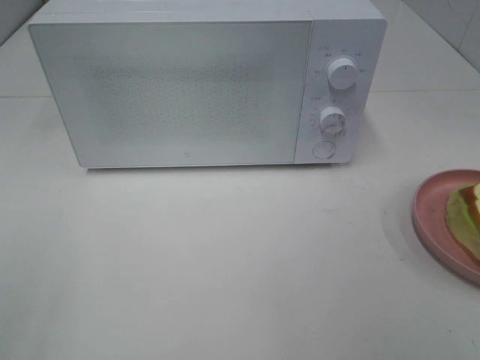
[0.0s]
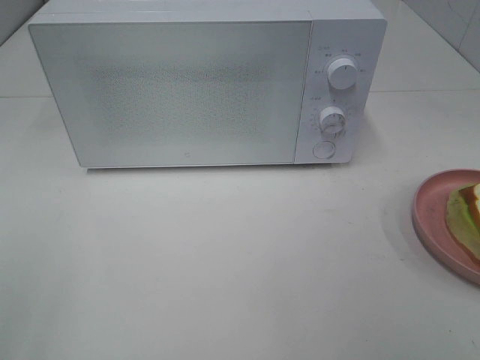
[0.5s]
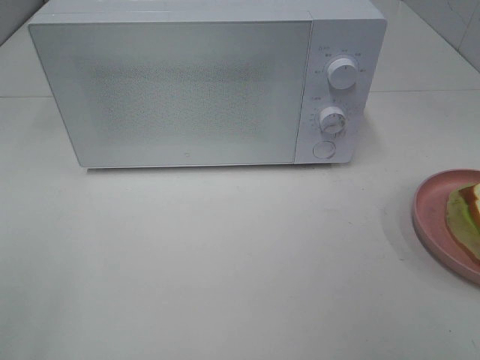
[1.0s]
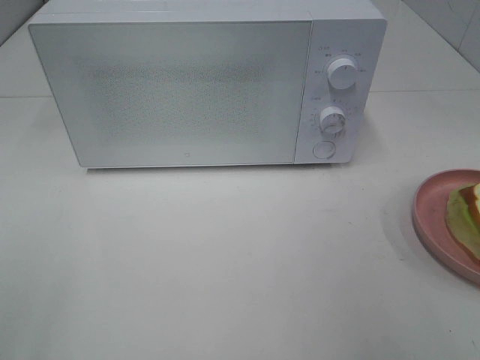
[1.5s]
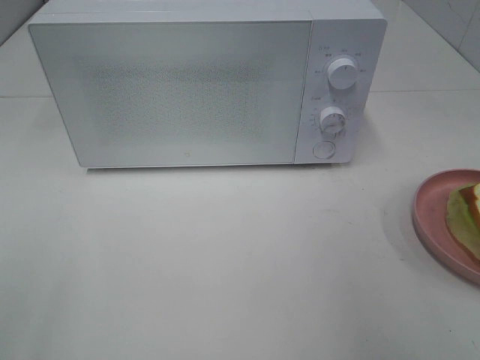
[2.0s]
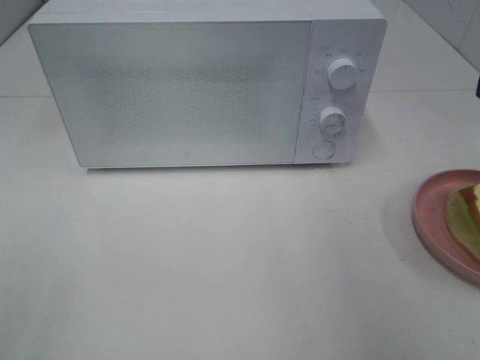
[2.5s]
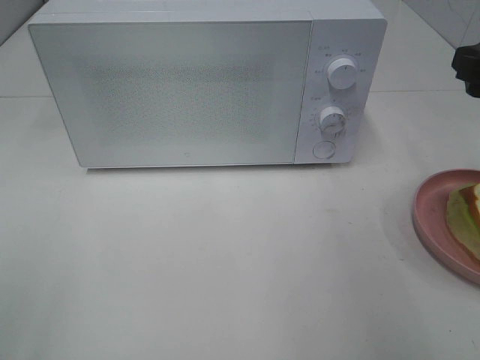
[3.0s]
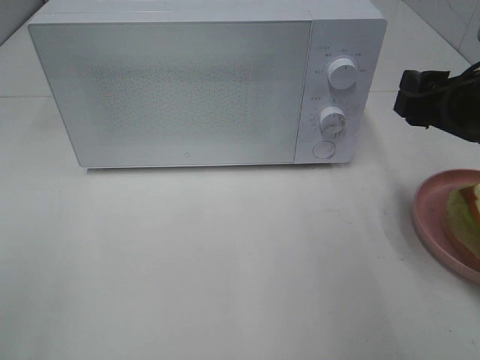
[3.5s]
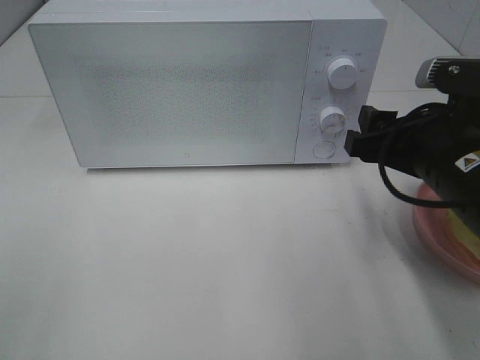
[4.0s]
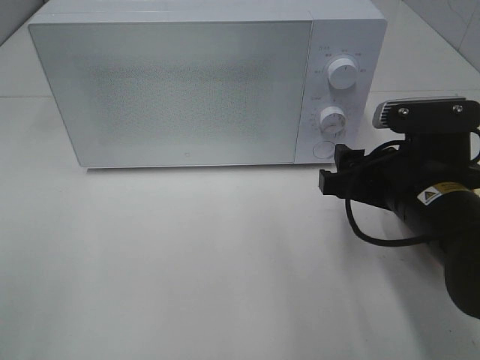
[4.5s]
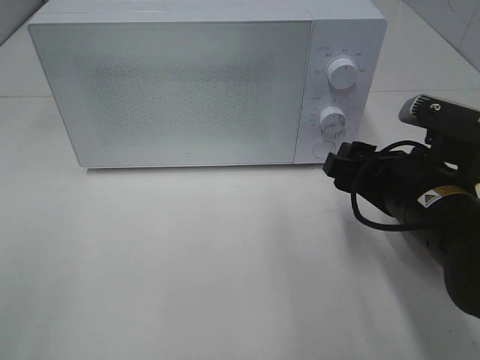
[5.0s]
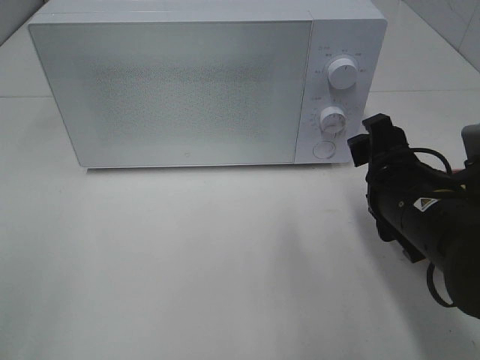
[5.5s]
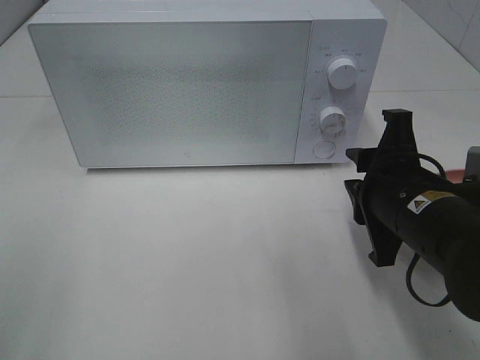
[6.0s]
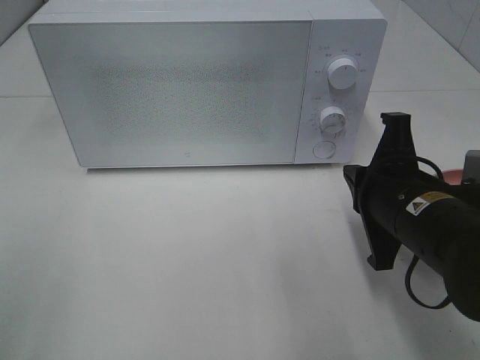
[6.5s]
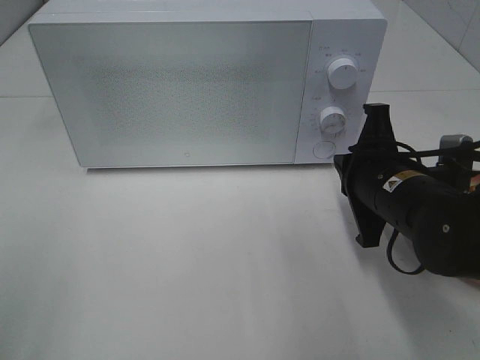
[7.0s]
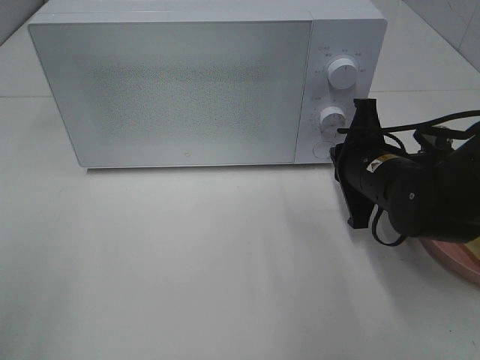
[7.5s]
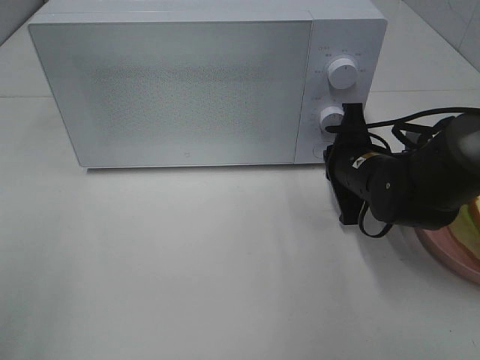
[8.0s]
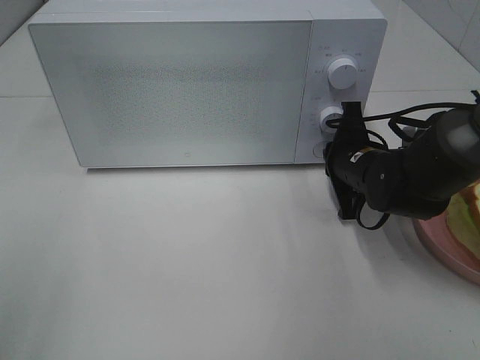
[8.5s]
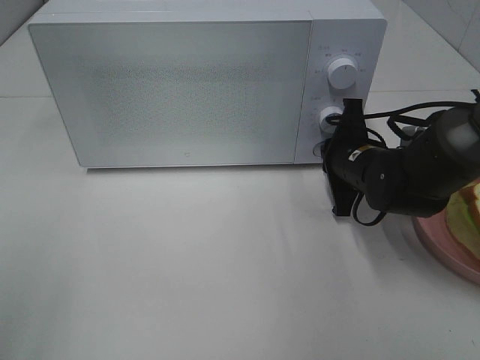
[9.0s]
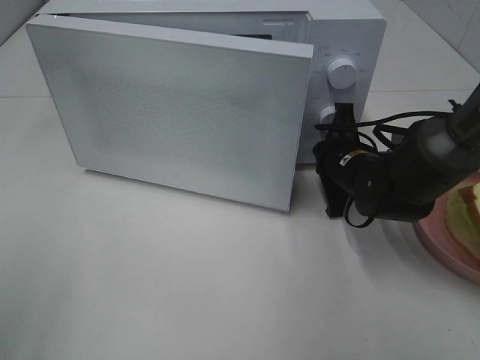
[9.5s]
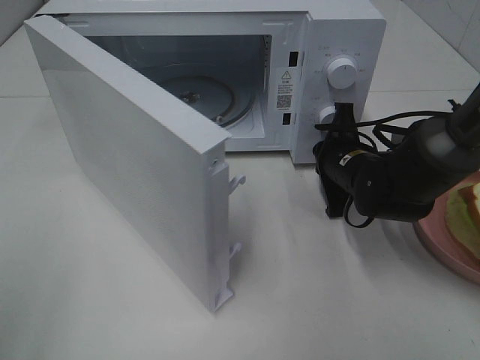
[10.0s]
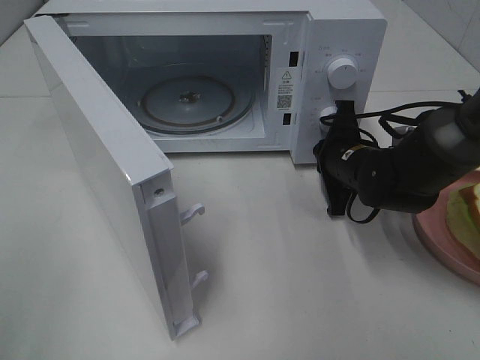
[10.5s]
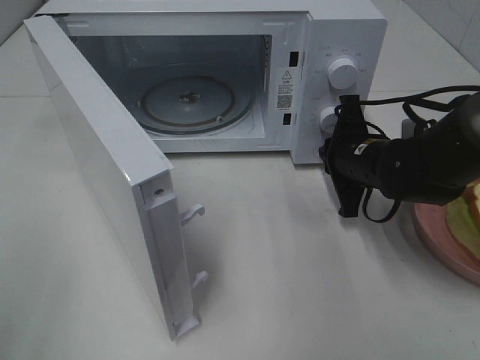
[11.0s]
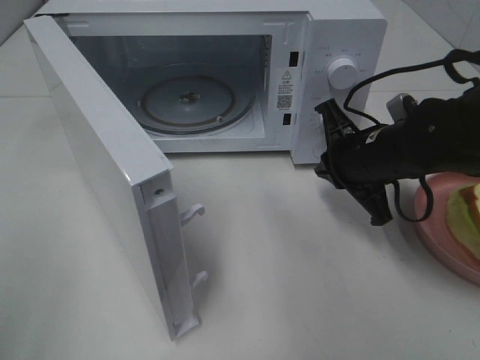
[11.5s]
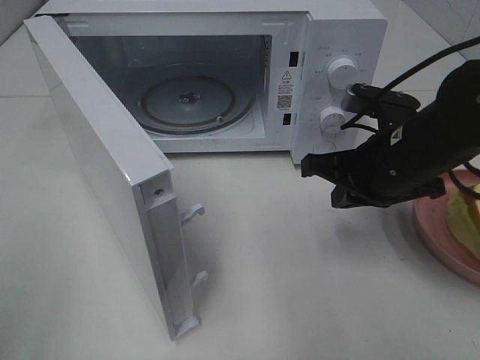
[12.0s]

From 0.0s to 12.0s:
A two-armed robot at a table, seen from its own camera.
Task of the whole recording: Heat Sandwich.
Step, from 0.0s to 11.0s: Right hand: press the switch.
From 2.0s to 4.0s: The right gripper moves downward, to the left and forward, roughly 15 cm.
From 4.0s to 6.0s: The right gripper closes.
From 6.0s to 8.0s: The right gripper moves forward and downward, approximately 15 cm, and closes.
From 10.0s to 12.0s: The right gripper heads upward and backward, covering roughly 10 cm.

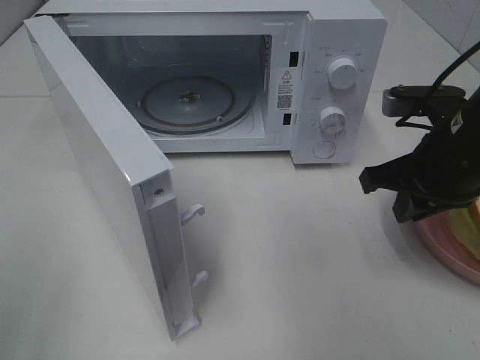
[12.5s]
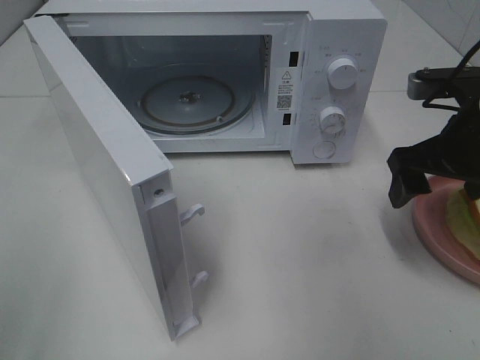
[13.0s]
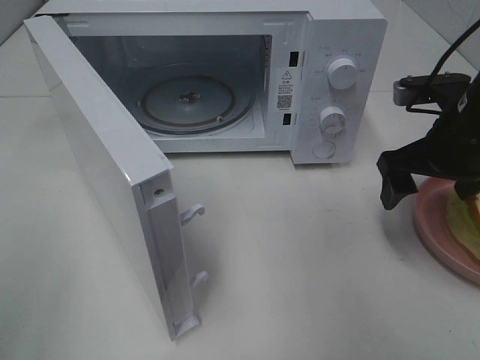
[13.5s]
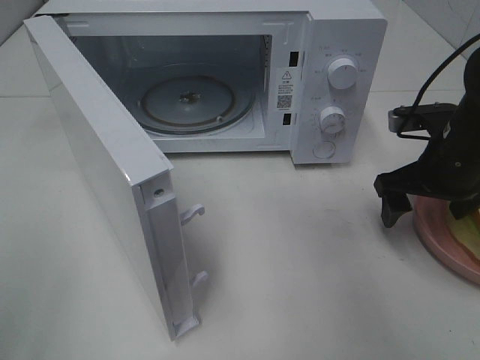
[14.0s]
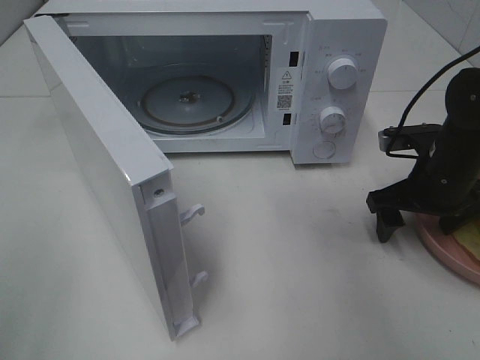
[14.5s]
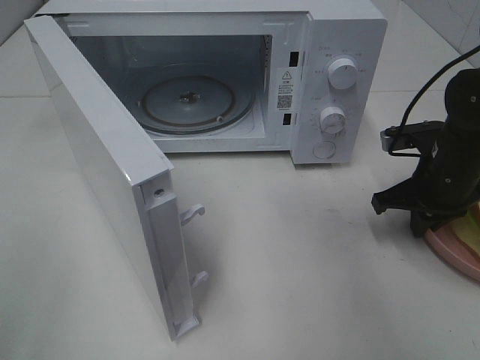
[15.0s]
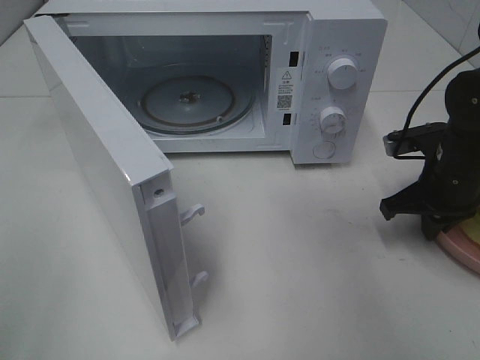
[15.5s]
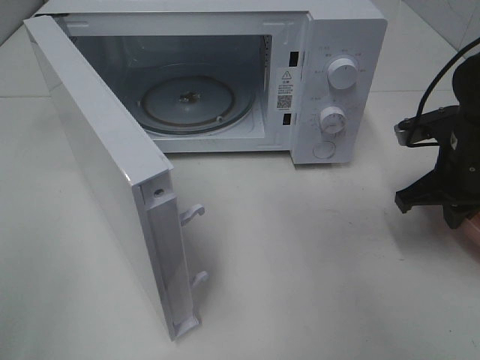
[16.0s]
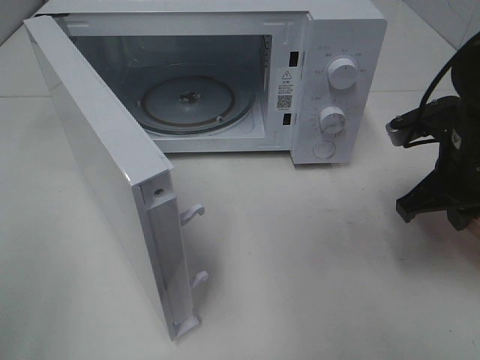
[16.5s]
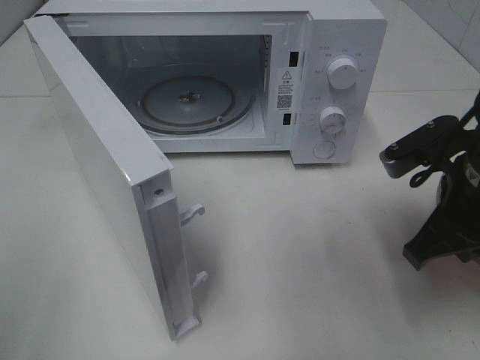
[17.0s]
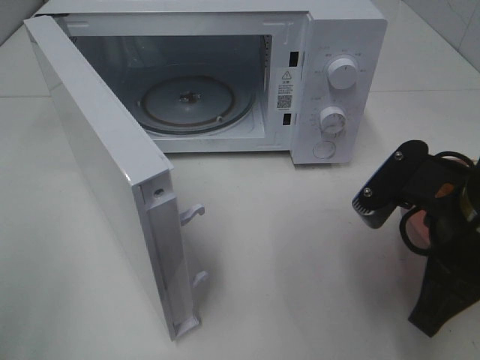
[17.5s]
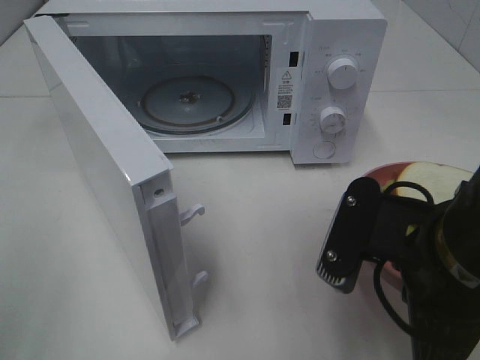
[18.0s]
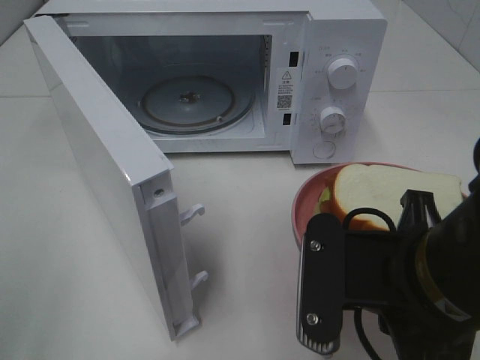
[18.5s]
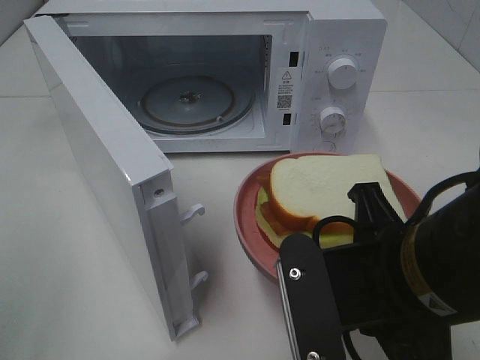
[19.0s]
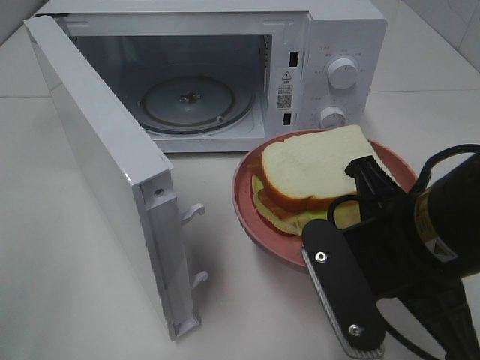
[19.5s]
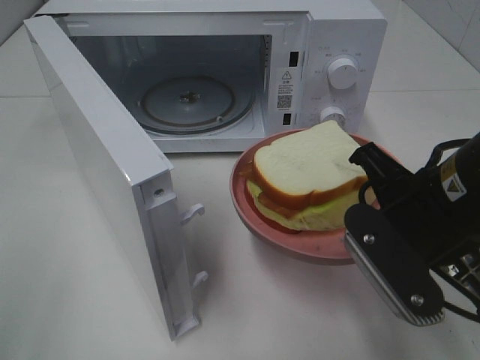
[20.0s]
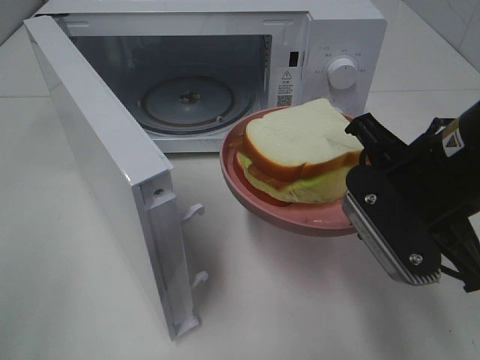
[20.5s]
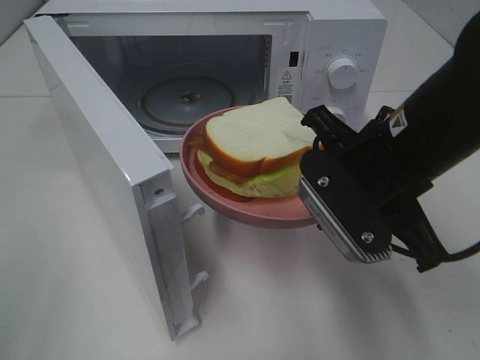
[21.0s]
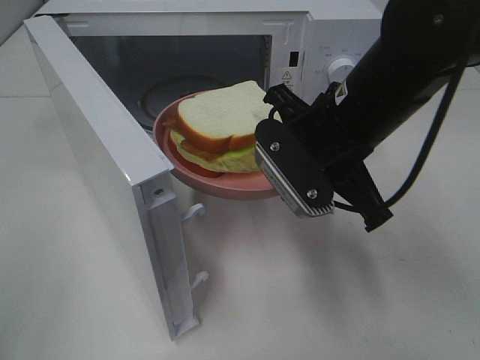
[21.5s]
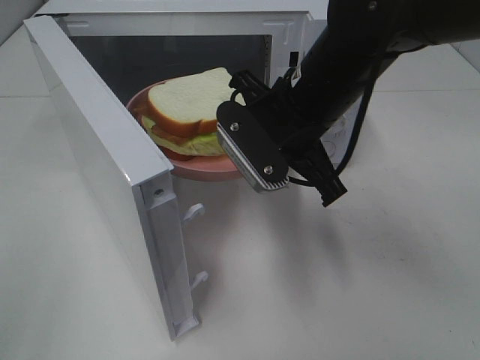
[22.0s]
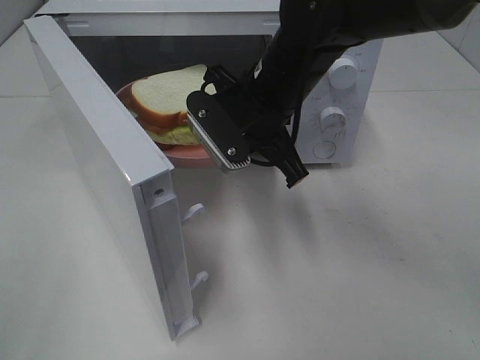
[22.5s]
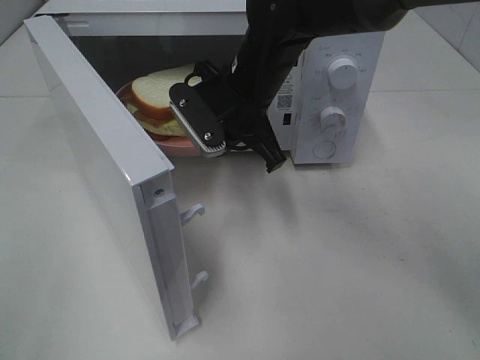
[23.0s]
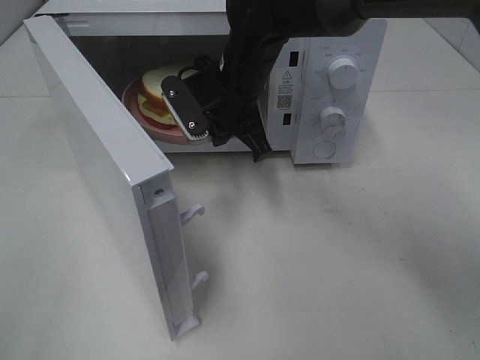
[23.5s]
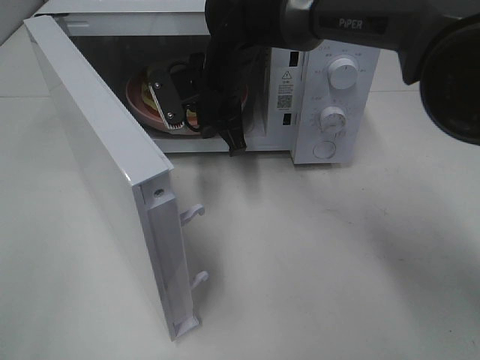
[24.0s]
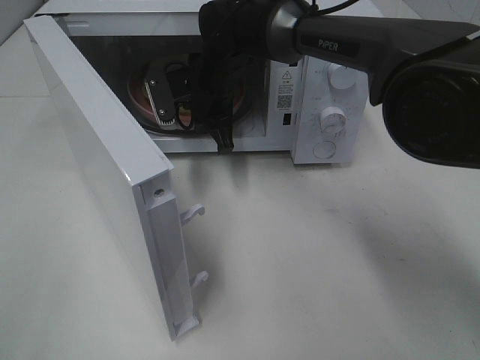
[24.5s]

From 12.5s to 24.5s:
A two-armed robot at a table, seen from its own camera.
Task of the whole recording: Heat Sandwich.
Step, from 12.5s to 15.5s: Right hand: grab the plate with the sandwich.
From 12.5s to 14.5s: The right gripper is displaced downward and forward by about 10 cm, and opens up.
From 14.5s to 16.5s: The right gripper goes approximately 5 cm upward, and closes its fingers.
From 16.5s to 18.5s: The right gripper is displaced backward and to the left by about 20 cm.
From 18.5s to 20.5s: The right gripper shifts about 10 cm forward.
From 20.5s to 22.5s: The right gripper moves forward and to the left, roughly 20 cm.
From 22.5s to 24.5s: The right gripper moves forward and to the left, about 15 cm.

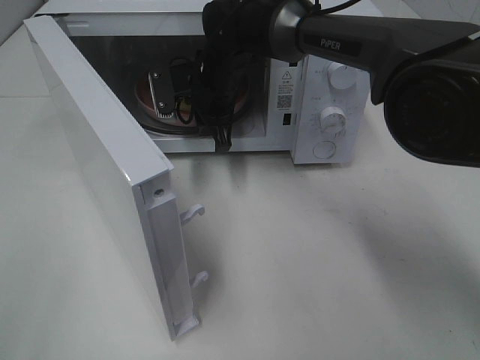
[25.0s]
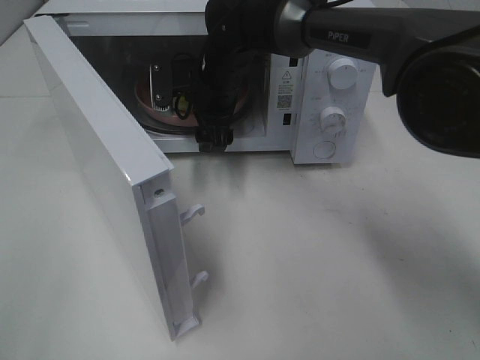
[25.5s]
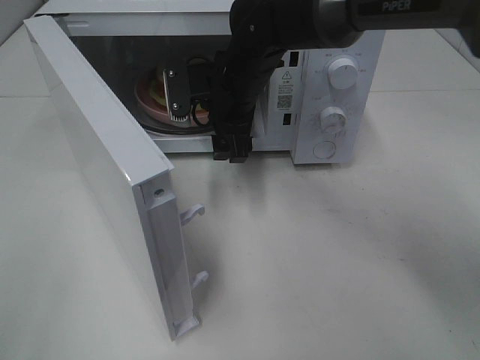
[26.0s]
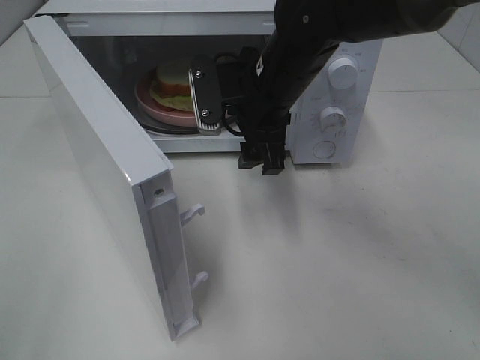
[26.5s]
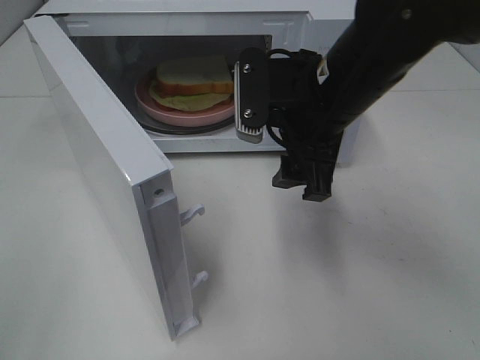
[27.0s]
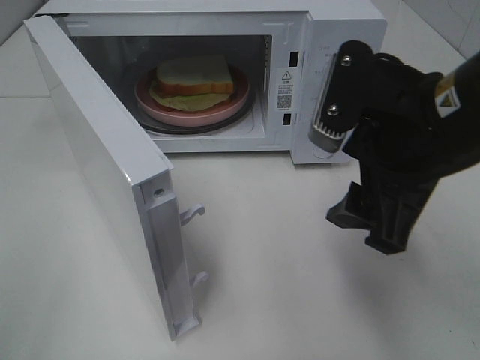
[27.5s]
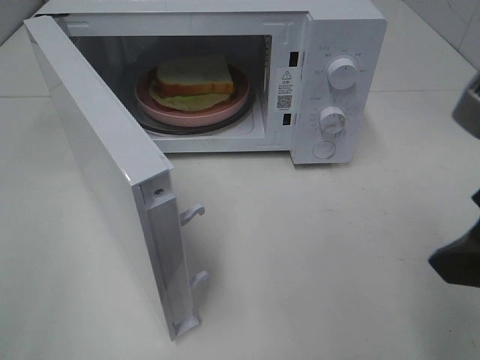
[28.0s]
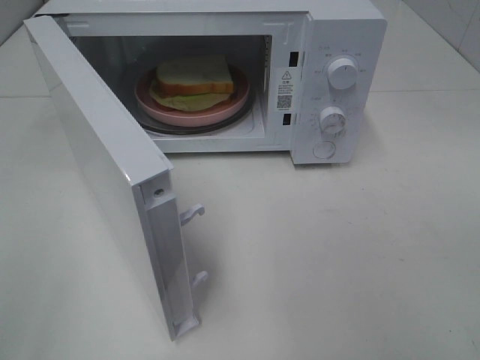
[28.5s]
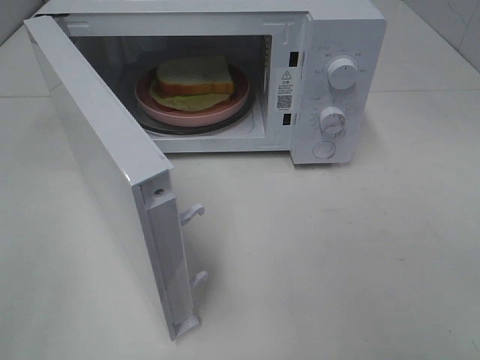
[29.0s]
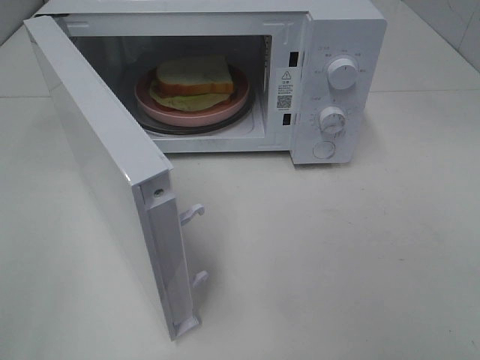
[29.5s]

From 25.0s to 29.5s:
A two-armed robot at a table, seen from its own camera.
Task of the whole recording: Heat Sandwich.
From 25.0s to 27.0s: The right gripper is displaced backward, to the right and upward by some 20 cm, and opens its fingers.
From 27.0s to 29.5s: The right gripper heads backward and to the right, covering approximately 35 cm.
